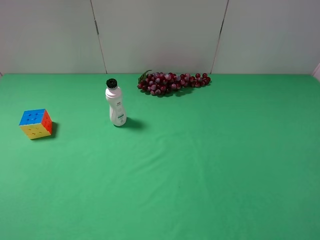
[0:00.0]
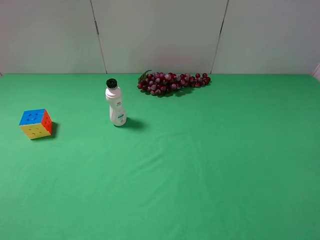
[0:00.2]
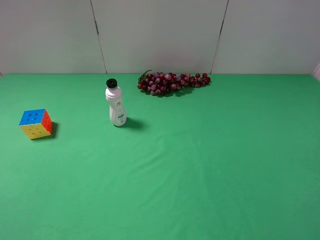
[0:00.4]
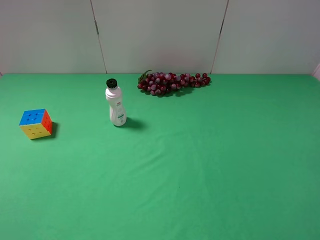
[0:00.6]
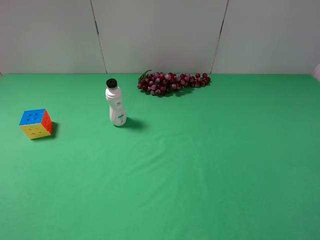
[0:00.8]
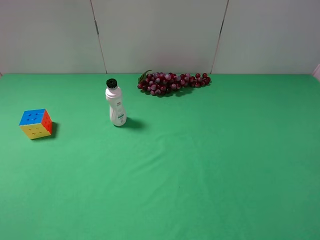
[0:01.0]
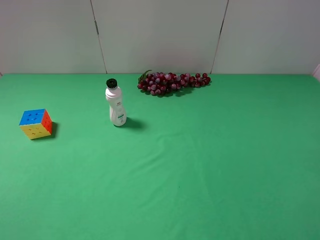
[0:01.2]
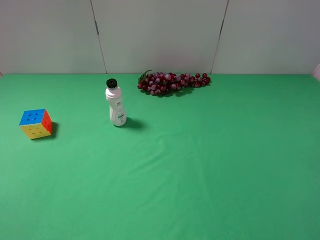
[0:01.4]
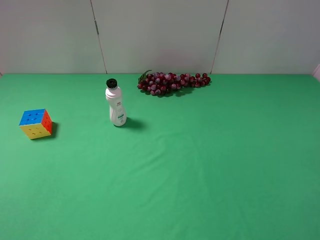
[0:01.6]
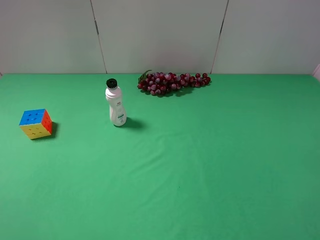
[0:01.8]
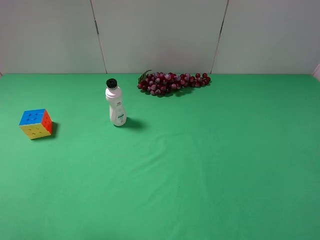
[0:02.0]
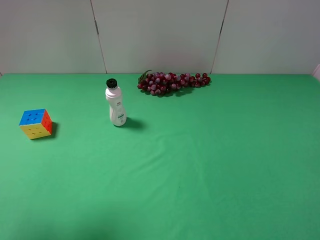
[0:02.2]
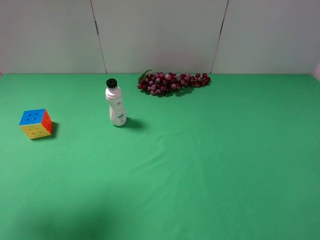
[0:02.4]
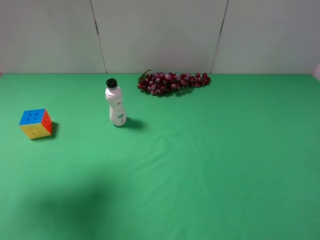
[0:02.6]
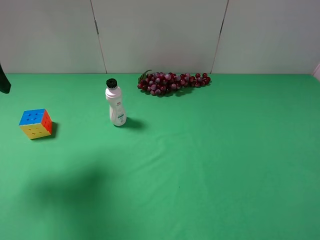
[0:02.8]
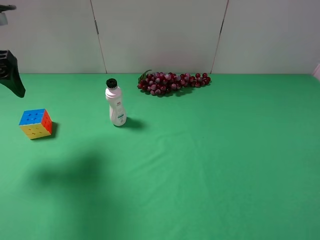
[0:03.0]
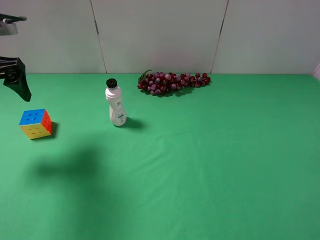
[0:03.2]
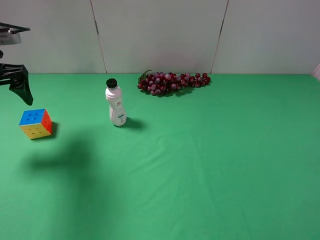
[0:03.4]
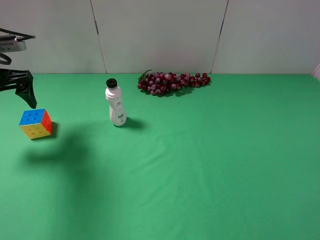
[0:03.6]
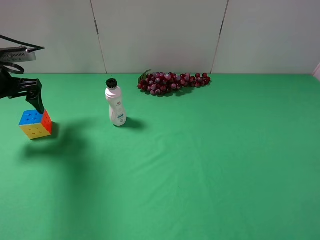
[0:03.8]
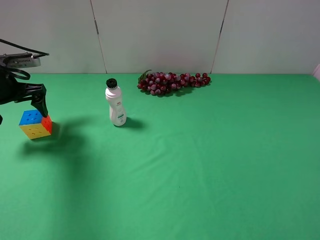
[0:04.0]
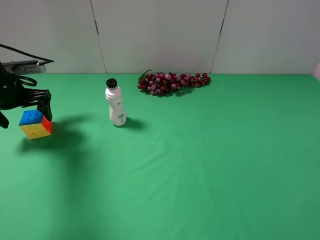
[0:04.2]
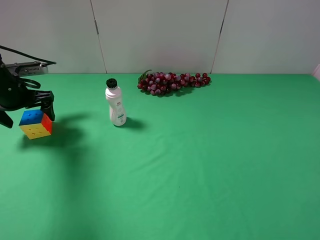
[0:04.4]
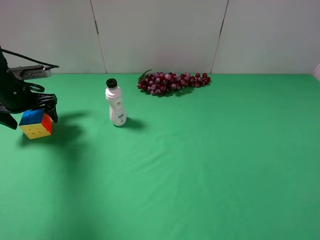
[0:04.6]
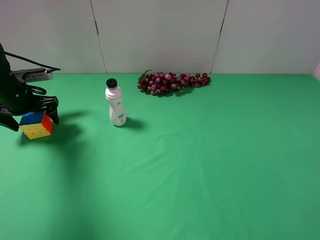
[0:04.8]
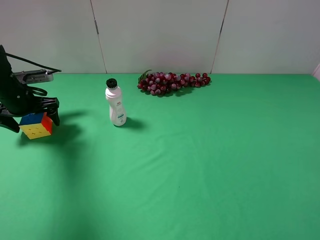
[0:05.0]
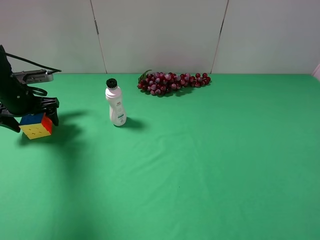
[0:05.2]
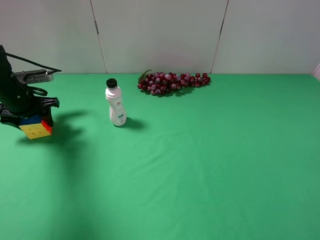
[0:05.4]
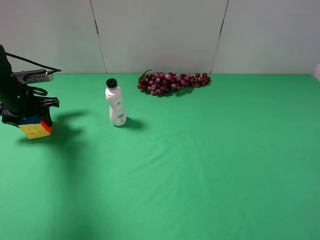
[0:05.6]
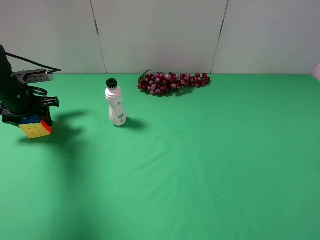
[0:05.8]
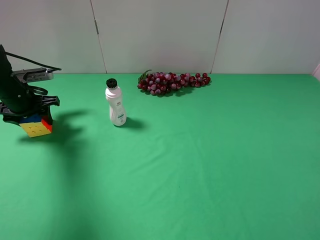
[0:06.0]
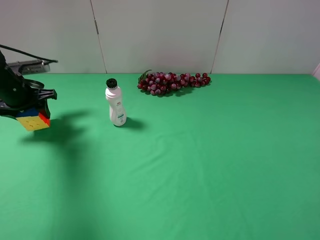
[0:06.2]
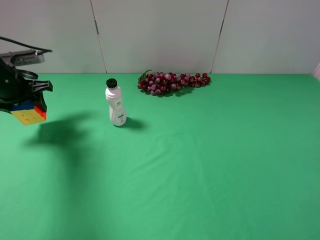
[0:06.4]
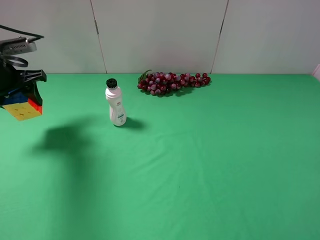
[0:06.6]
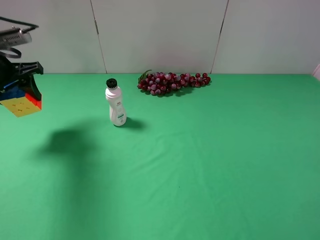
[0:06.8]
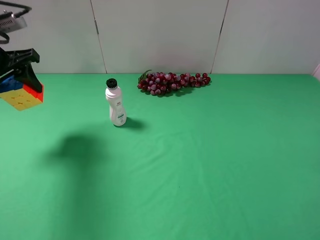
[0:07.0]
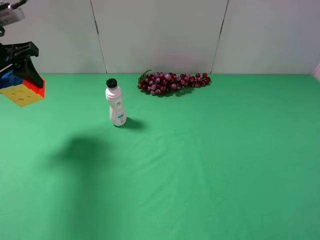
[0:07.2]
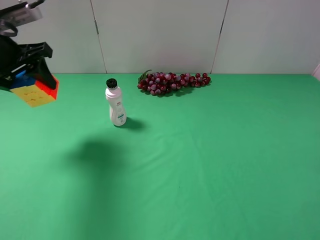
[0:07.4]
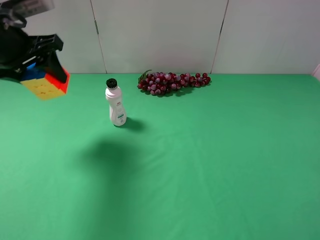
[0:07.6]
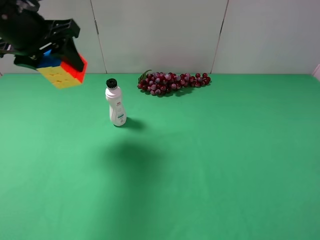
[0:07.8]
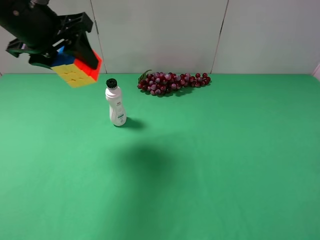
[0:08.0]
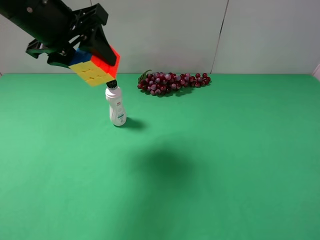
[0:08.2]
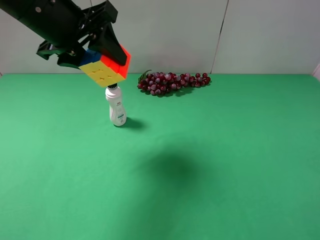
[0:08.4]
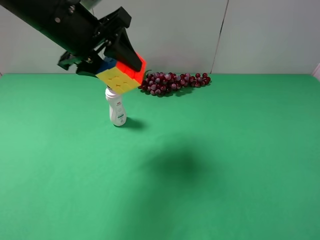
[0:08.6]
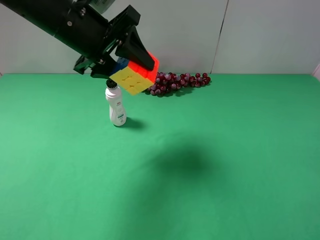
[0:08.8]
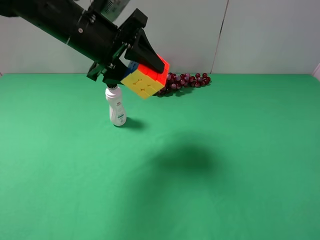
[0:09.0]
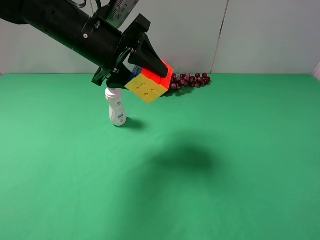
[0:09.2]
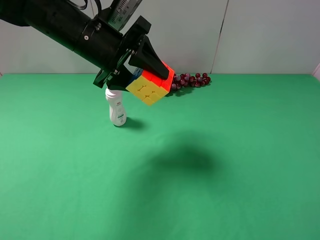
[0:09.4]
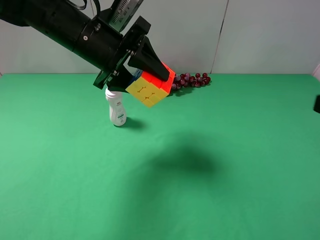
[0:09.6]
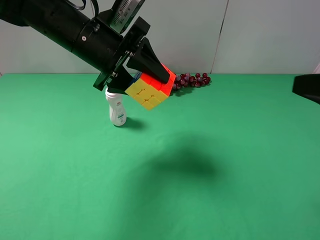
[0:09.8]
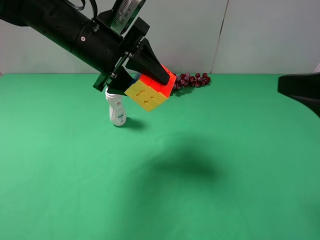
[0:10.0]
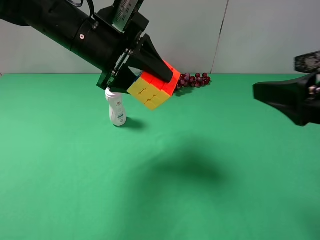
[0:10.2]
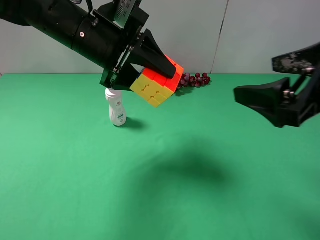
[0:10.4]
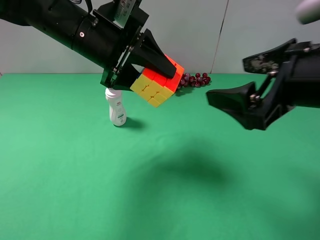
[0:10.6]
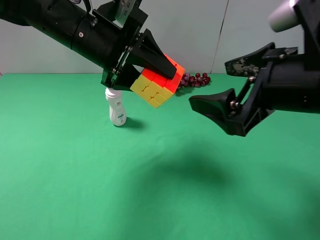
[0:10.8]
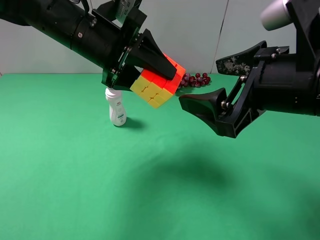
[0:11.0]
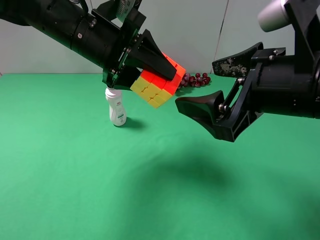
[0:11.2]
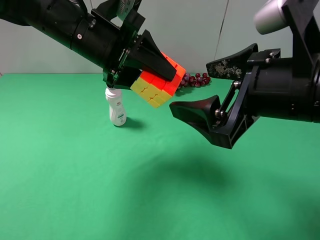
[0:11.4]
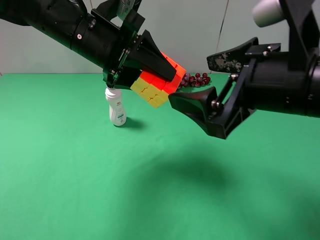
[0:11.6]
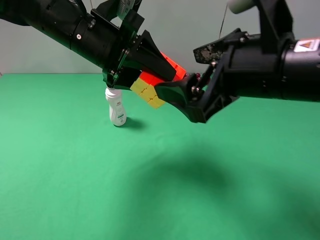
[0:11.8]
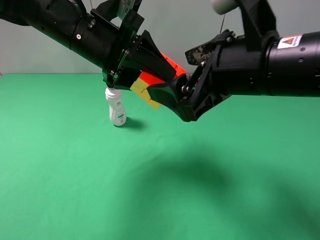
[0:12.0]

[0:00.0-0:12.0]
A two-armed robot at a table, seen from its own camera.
Task of the whole recording: use the left gripper to pick up the item and transfer it from the left gripper to the right gripper.
Step, 0:00.0 to 0:05.4: Use the left gripper to grab the Rubik's Cube on the left side of the table.
0:01.6 to 0:03.0: The left gripper heads forward, covering approximately 25 cm.
0:03.0 to 0:04.4: The left gripper is displaced downward and forward by approximately 15 cm.
0:04.4 to 0:06.0: The left gripper closes its fingers.
0:06.0 to 0:07.6: The left gripper heads upward and to the right, covering roughly 20 cm.
0:07.6 to 0:09.0: The left gripper goes roughly 15 cm to the right.
0:09.0 to 0:10.4: The right gripper goes roughly 15 cm forward and to the left.
0:10.4 to 0:12.0: The right gripper shifts approximately 10 cm to the left.

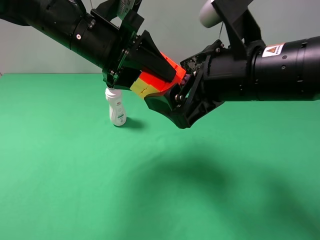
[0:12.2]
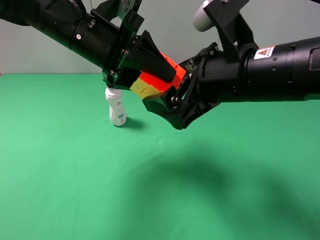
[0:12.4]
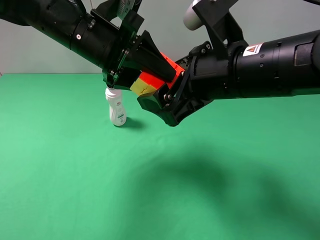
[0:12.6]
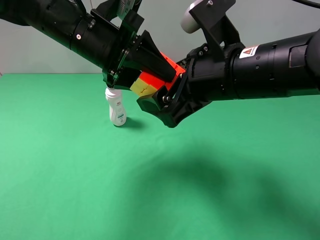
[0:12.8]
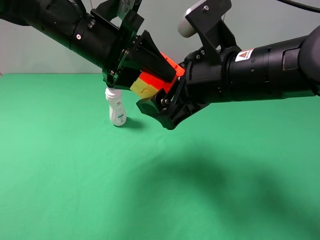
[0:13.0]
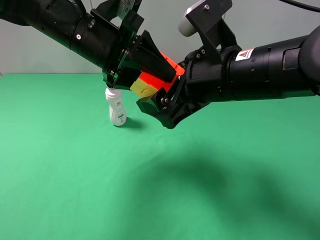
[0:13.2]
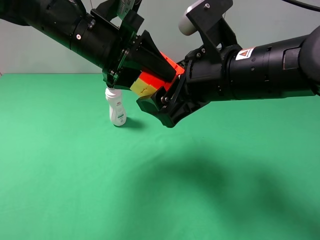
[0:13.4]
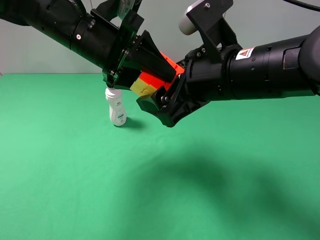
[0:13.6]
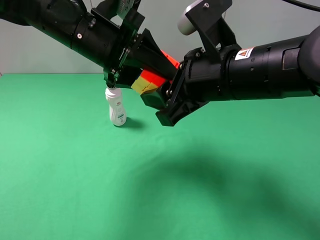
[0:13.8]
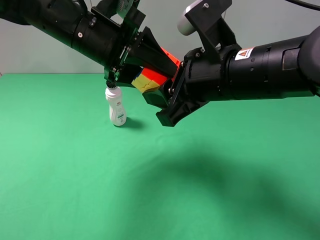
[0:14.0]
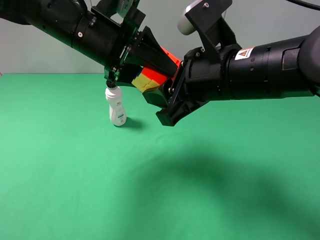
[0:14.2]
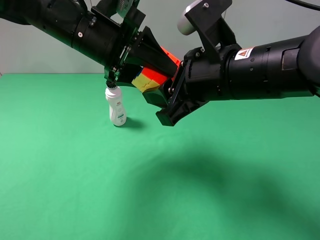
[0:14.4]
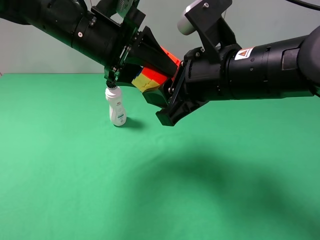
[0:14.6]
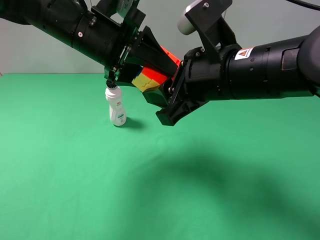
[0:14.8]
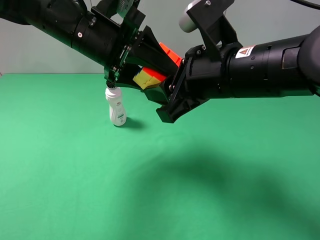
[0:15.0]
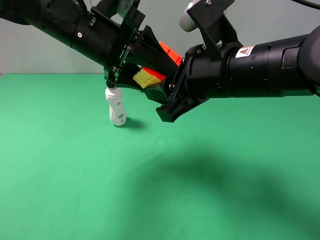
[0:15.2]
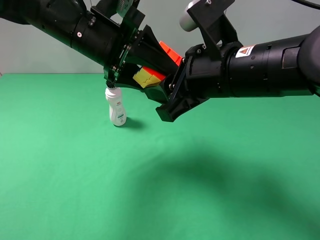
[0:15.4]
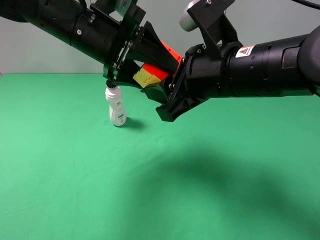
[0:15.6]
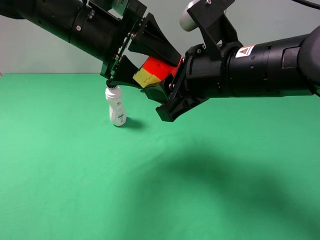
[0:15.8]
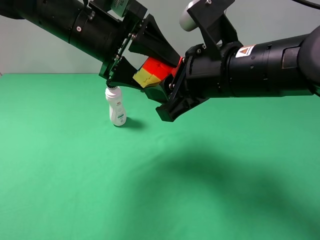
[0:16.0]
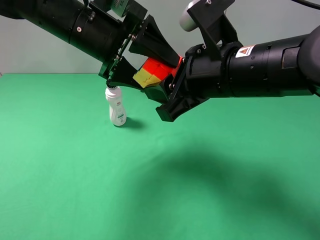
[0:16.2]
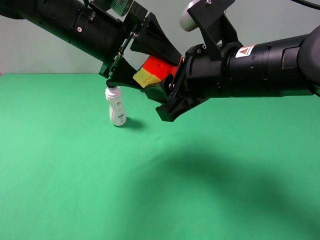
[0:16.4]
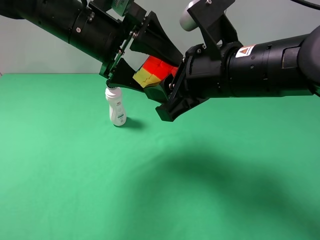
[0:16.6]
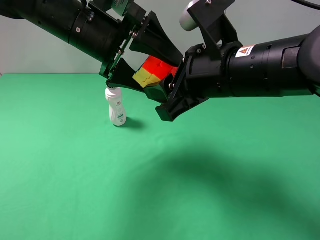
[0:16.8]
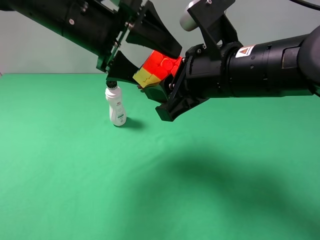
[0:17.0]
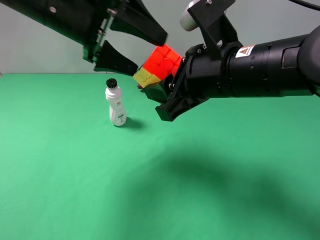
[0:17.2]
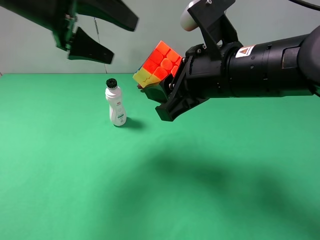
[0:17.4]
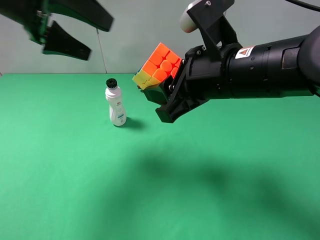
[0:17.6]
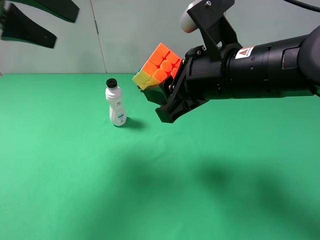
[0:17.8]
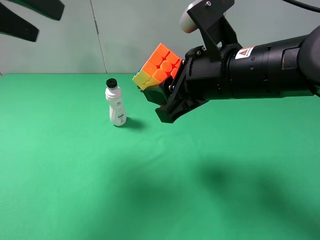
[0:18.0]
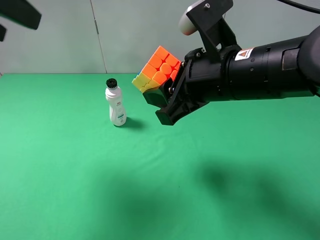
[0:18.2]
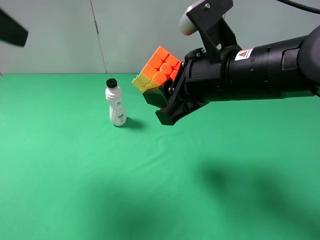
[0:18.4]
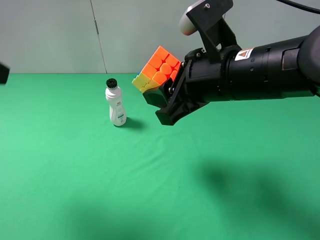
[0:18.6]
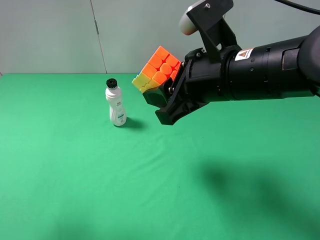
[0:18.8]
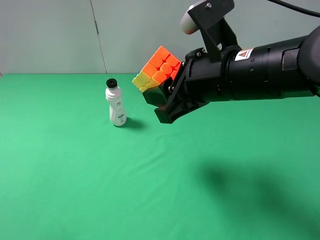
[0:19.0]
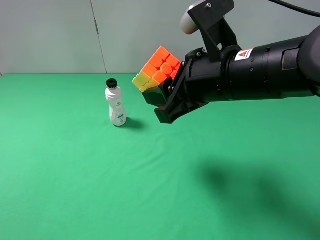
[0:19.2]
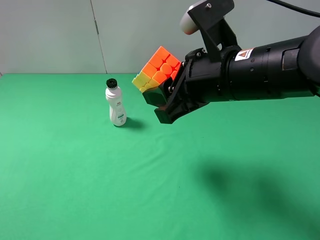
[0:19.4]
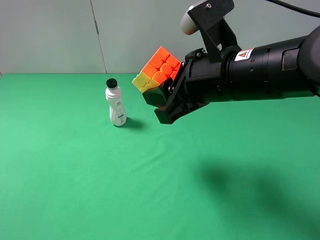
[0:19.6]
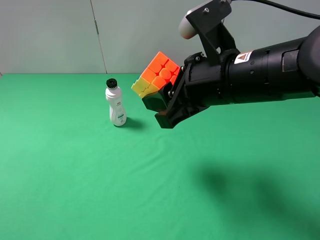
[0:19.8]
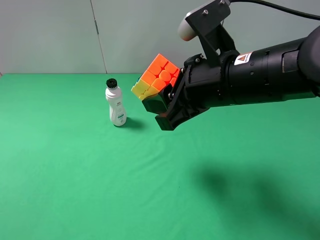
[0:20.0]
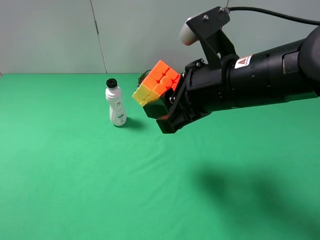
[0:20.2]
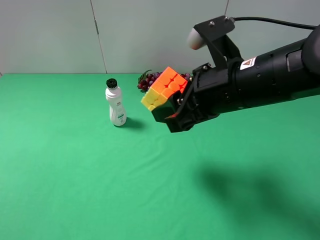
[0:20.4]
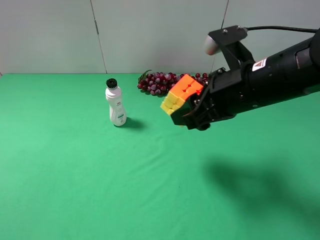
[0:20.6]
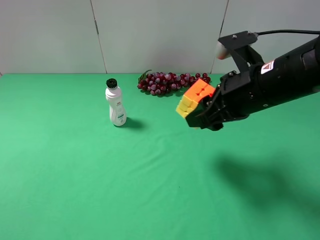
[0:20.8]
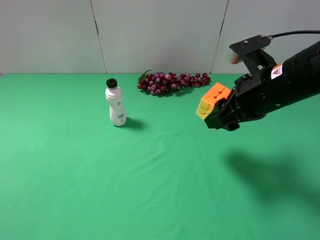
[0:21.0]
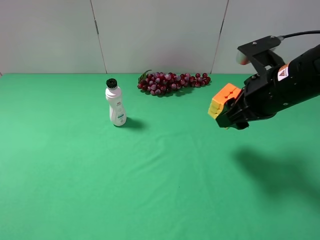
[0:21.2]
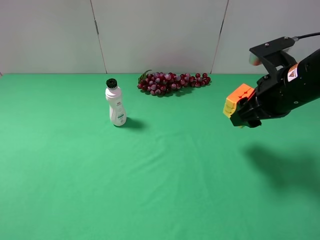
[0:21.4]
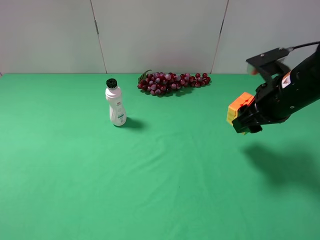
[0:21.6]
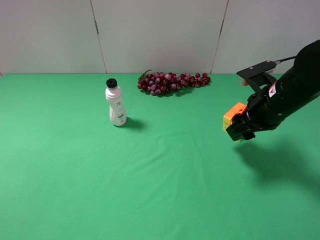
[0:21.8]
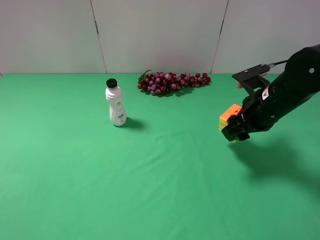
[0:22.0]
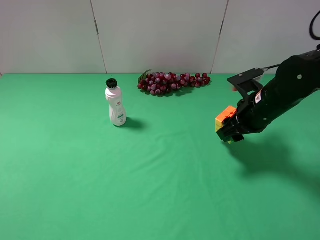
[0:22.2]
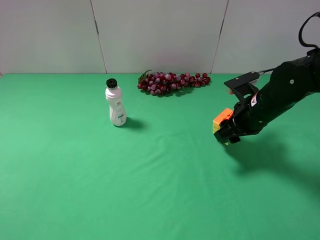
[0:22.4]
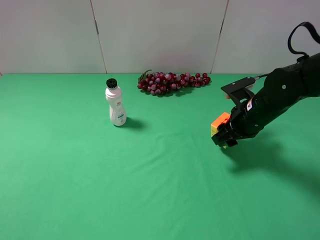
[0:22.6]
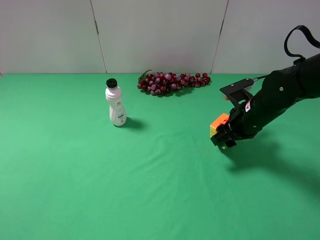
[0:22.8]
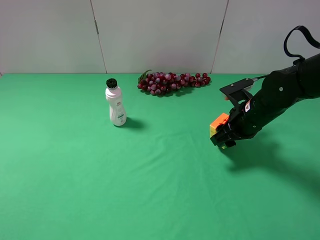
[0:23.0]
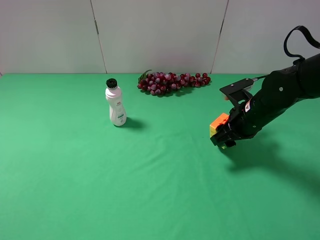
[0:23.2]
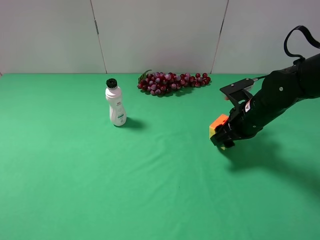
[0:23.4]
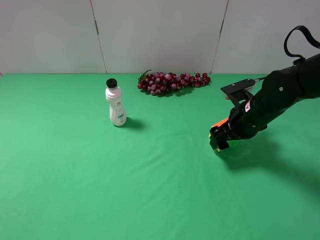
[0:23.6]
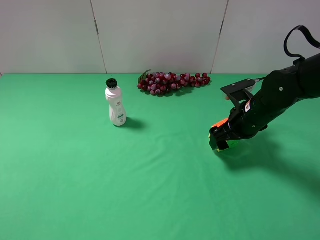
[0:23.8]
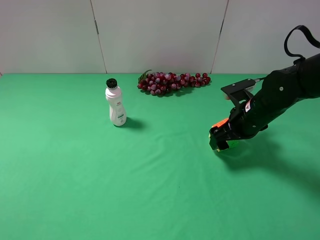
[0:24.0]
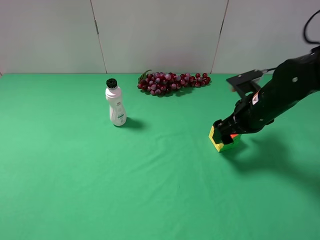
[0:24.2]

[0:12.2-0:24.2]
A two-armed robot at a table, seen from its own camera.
Task of the whole recording: use the left gripper to pick up the item and transfer it from the left gripper to the right gripper.
Step, 0:12.2 to 0:15.6: Pass the Rubik's Cube to the right gripper.
Step, 0:15.8 to 0:24.0: The right gripper places Rubik's Cube on the right side of the table.
0:12.2 to 0:13.8: The right gripper closes up.
0:13.8 to 0:15.2: Neither gripper changes place.
0:15.2 to 0:16.6: The left gripper opens.
0:16.6 to 0:18.2: The left gripper goes roughly 20 cm to the left, upward and backward.
0:18.2 to 0:19.8: The left gripper is displaced backward and downward by roughly 25 cm.
0:19.8 to 0:21.2: The right gripper goes some 10 cm to the right.
0:21.2 to 0:22.6: The right gripper moves downward and forward, approximately 10 cm.
0:22.6 to 0:24.2: The right gripper opens.
